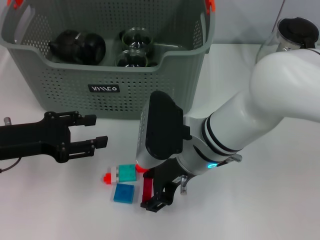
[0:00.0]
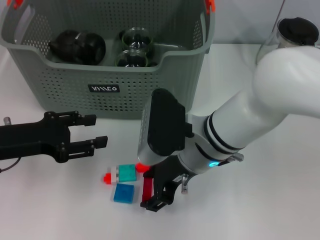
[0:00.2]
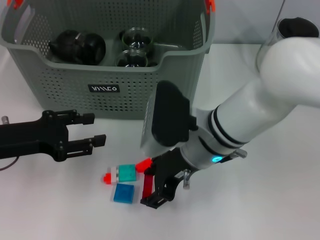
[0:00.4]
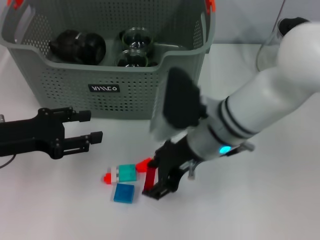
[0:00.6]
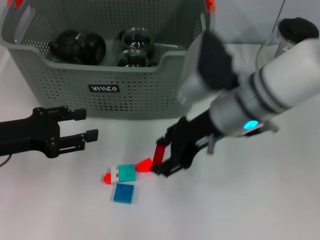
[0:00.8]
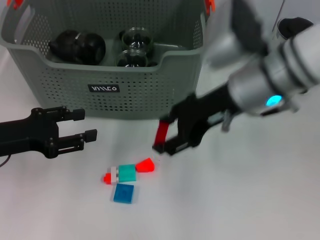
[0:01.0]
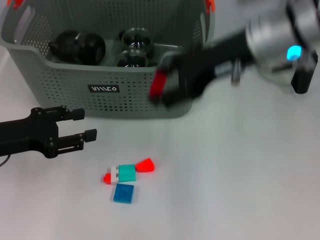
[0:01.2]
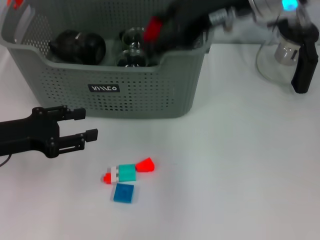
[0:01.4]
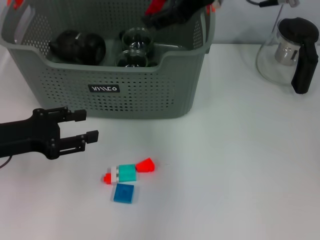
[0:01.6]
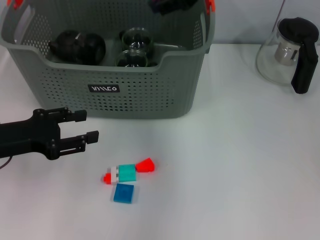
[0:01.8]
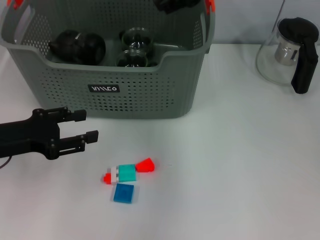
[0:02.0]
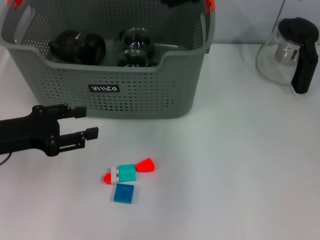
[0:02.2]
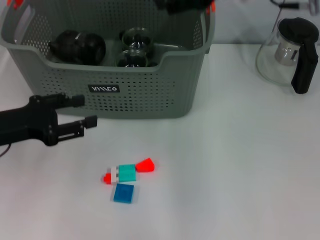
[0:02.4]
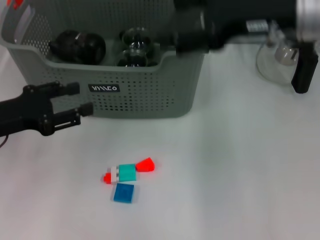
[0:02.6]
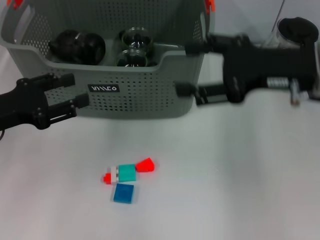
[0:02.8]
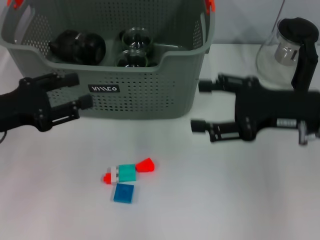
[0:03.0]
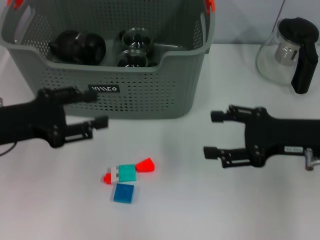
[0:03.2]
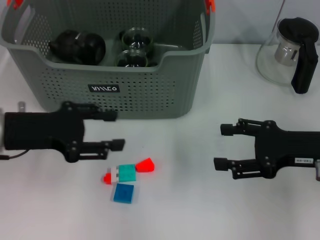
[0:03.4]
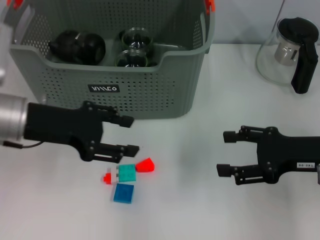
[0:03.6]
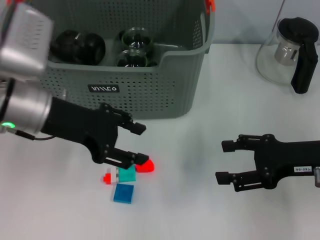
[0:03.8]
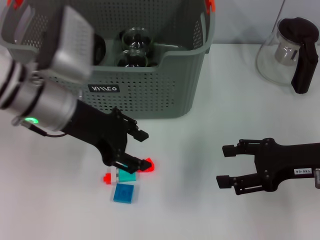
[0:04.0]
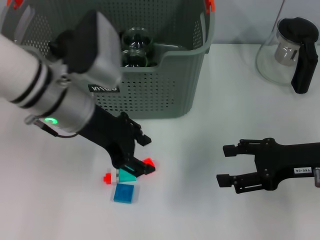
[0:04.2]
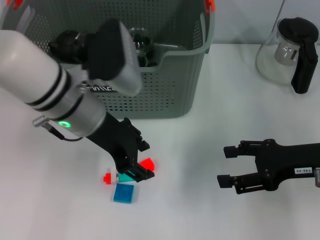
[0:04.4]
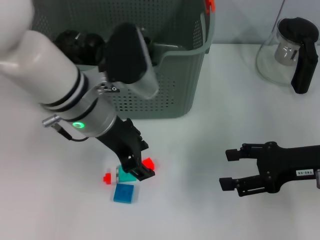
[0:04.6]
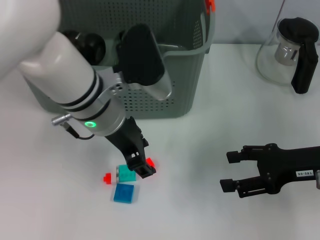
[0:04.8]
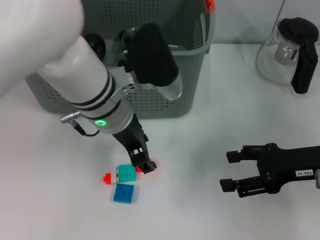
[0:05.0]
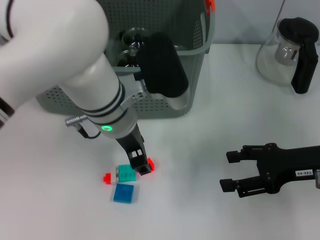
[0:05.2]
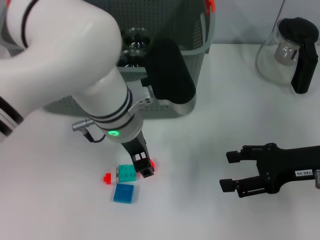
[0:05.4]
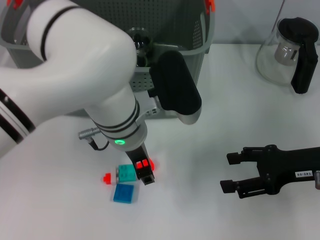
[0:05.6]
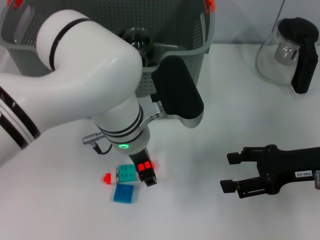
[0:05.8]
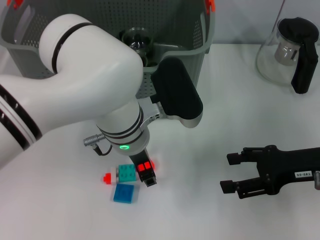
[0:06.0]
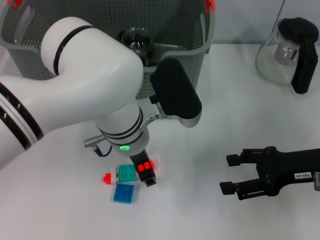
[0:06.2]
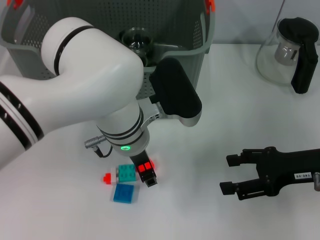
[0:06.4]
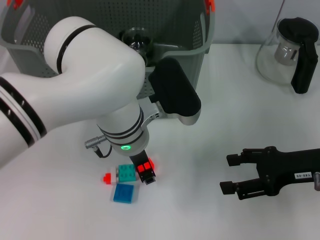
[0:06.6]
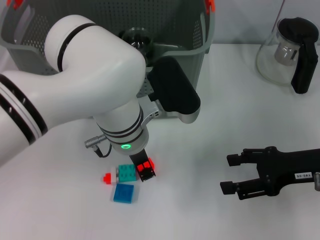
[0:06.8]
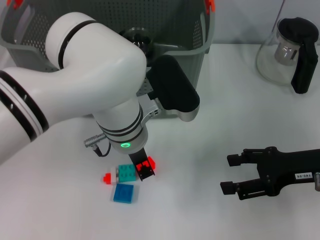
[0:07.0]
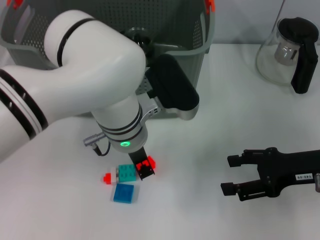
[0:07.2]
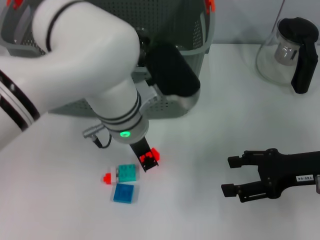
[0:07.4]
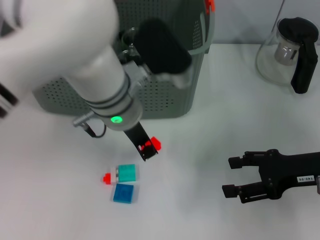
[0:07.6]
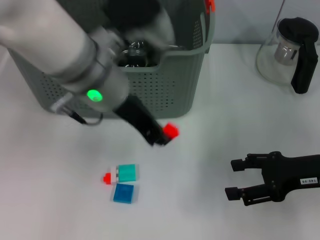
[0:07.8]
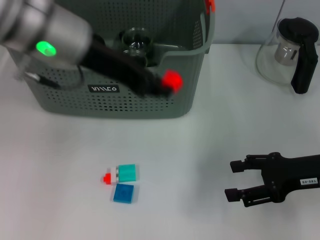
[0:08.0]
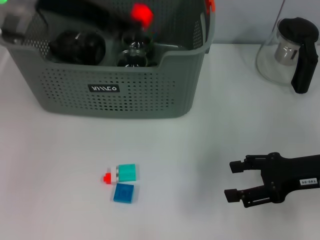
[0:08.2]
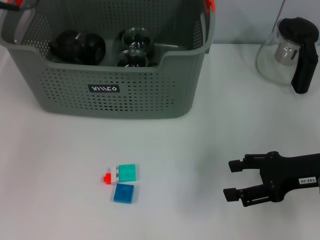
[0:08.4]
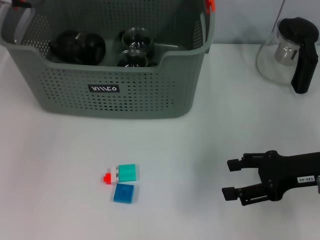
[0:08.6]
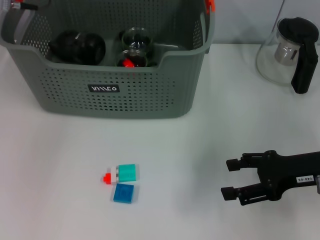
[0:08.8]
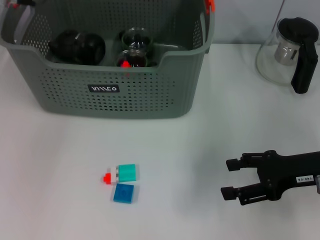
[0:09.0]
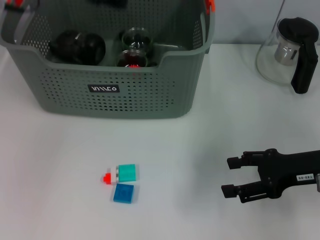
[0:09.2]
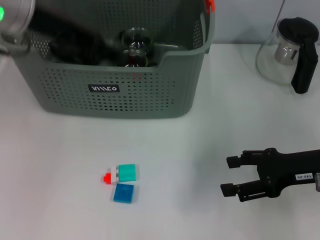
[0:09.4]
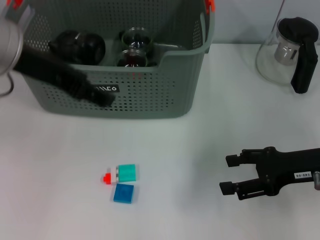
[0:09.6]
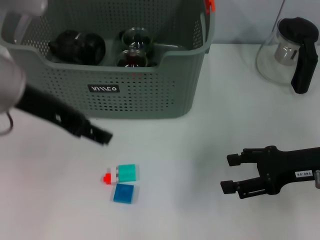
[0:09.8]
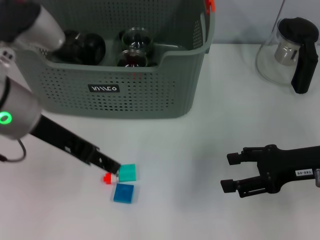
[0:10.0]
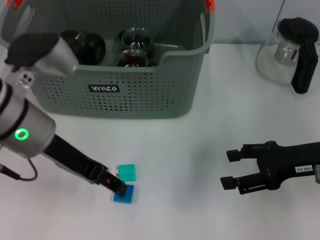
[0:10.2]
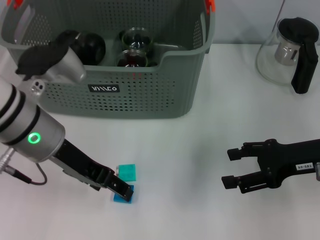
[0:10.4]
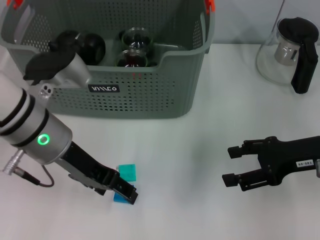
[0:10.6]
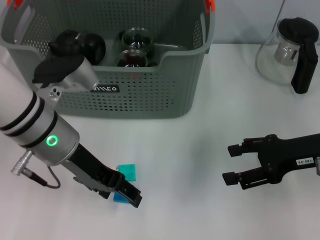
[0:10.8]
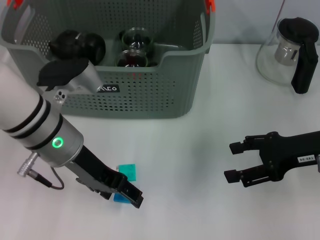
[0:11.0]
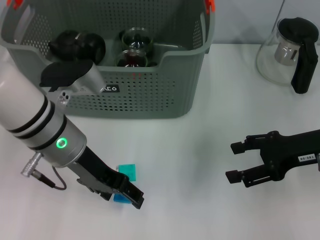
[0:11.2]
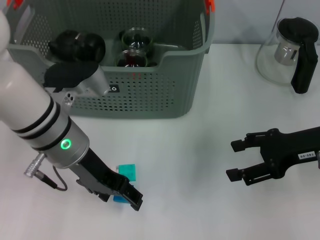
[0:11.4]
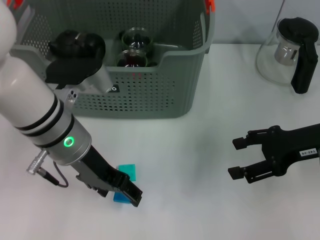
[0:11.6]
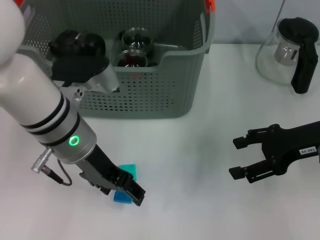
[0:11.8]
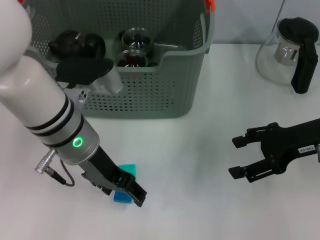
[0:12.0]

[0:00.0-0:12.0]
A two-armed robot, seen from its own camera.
Task of the whole recording: pick up the teacup on the table and place it into the storage bin, pick up the block on the table and place it into the storage bin.
Step, 0:00.0 to 0:01.8: Place the red block in the storage box with right gripper.
Step, 0:02.2 to 0:07.0: Grasp the orange block with left gripper.
Step, 0:07.2 to 0:08.8: Place the orange block in the storage box with left gripper.
0:00.0 to 0:01.6: The right gripper heads upward and forward, covering about 20 cm.
0:01.6 to 0:03.0: The right gripper goes some 20 cm downward, to the right and backward.
0:03.0 to 0:04.4: The right gripper changes place by some 5 cm; the left gripper heads to the right, covering about 15 cm.
0:04.4 to 0:06.0: The left gripper shifts about 10 cm to the right.
0:06.0 to 0:07.6: The left gripper shifts by about 5 cm, and closes.
0:07.6 to 0:09.0: The left gripper is displaced to the left, upward and forward by some 20 cm.
0:09.0 to 0:10.4: The left gripper is displaced backward and downward by roughly 15 cm, and opens its fingers.

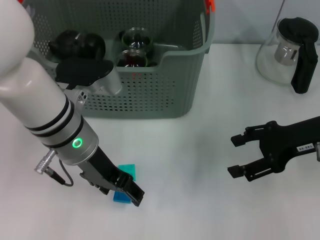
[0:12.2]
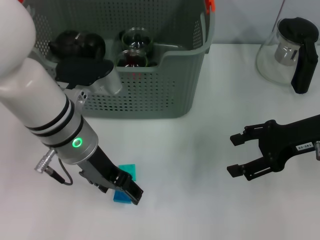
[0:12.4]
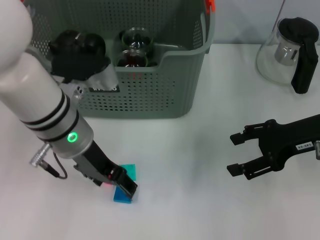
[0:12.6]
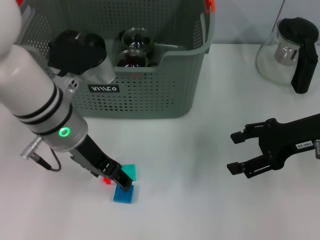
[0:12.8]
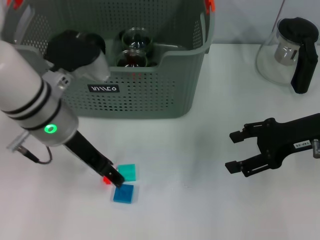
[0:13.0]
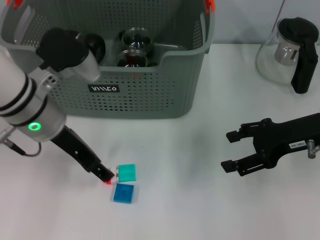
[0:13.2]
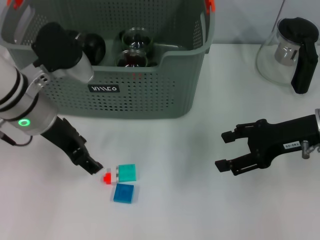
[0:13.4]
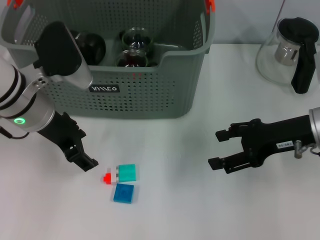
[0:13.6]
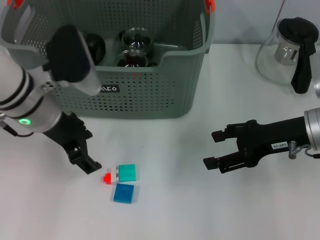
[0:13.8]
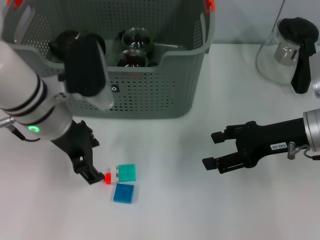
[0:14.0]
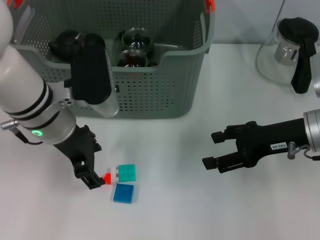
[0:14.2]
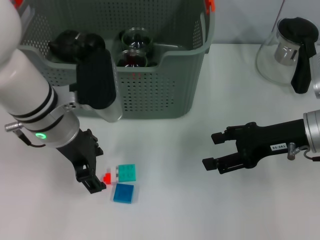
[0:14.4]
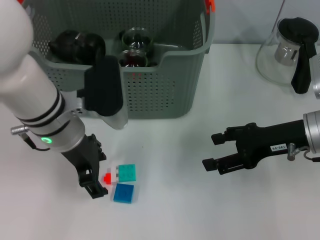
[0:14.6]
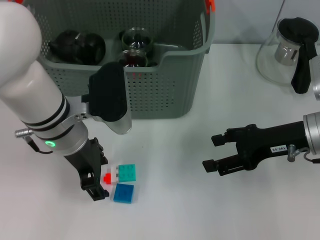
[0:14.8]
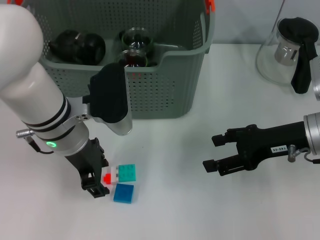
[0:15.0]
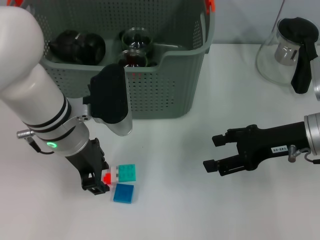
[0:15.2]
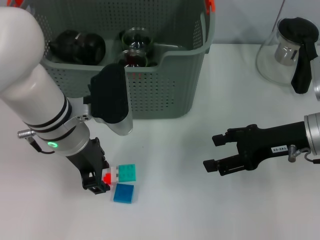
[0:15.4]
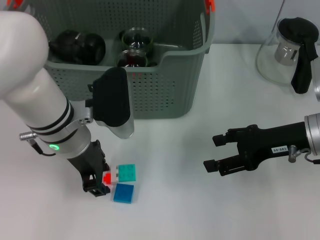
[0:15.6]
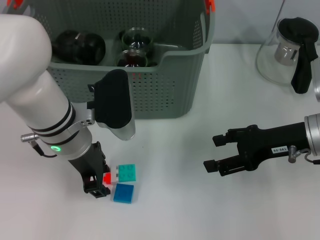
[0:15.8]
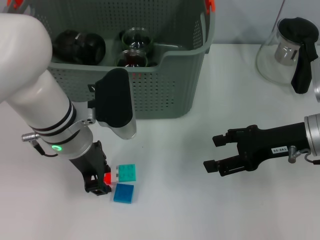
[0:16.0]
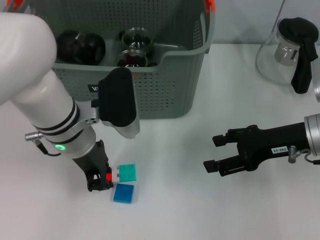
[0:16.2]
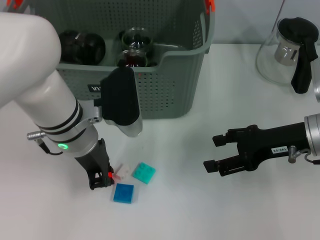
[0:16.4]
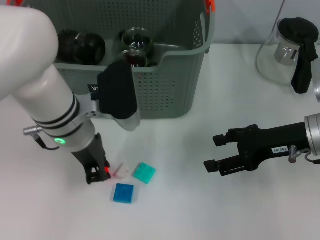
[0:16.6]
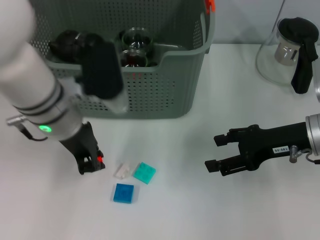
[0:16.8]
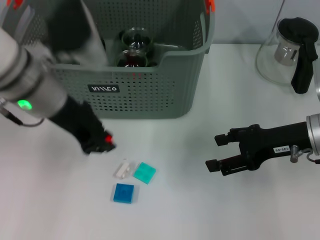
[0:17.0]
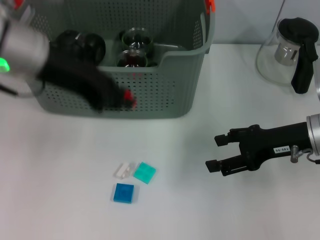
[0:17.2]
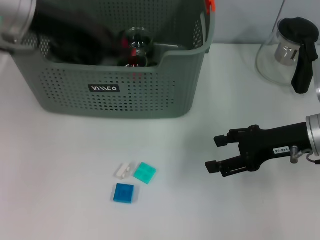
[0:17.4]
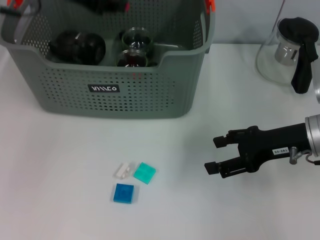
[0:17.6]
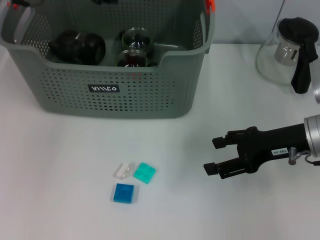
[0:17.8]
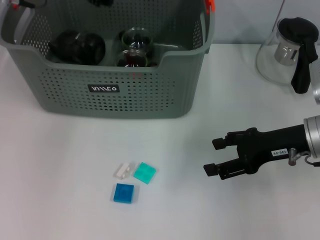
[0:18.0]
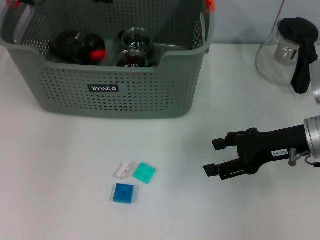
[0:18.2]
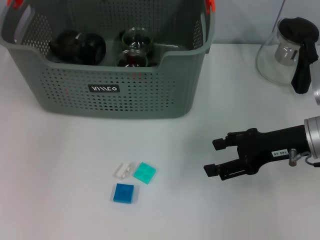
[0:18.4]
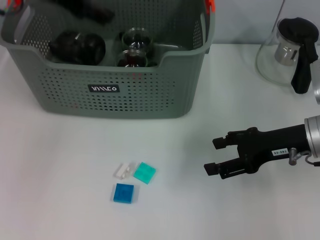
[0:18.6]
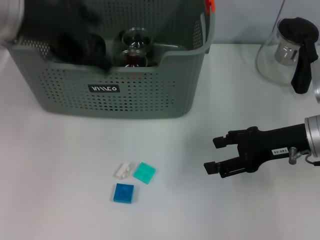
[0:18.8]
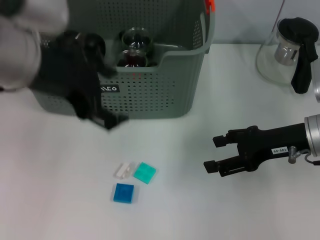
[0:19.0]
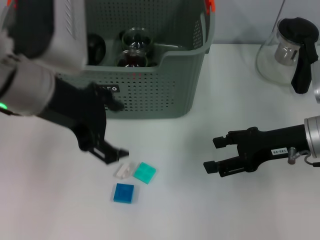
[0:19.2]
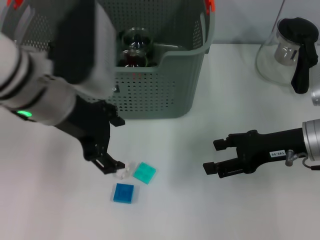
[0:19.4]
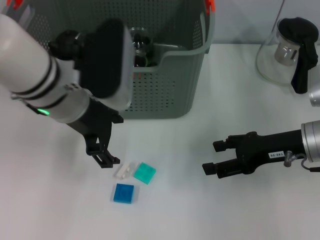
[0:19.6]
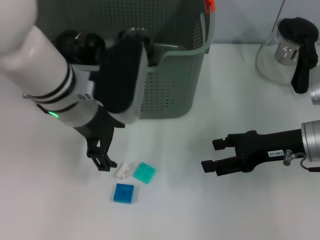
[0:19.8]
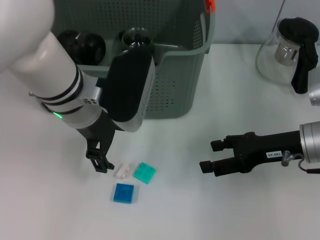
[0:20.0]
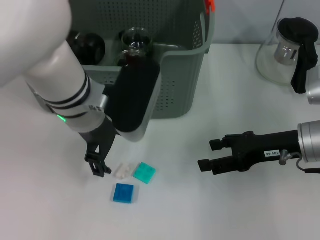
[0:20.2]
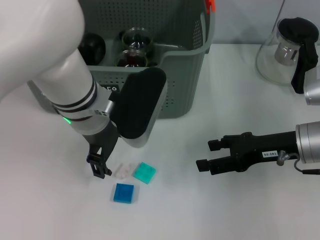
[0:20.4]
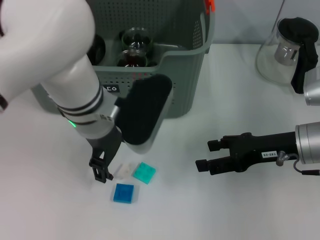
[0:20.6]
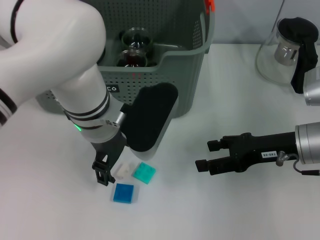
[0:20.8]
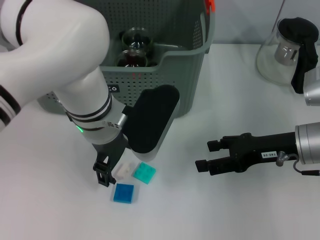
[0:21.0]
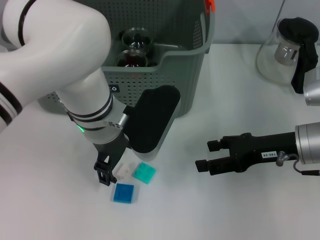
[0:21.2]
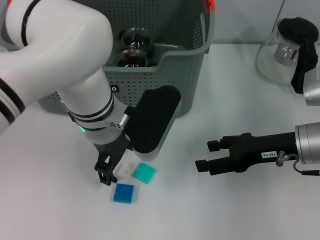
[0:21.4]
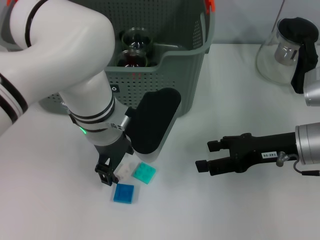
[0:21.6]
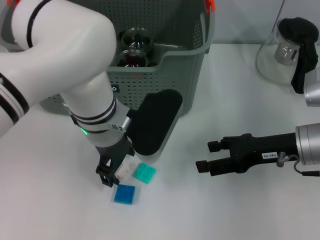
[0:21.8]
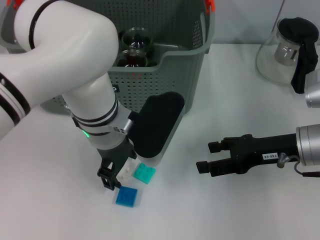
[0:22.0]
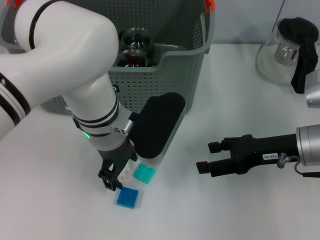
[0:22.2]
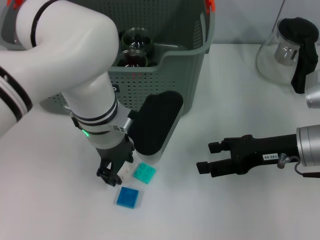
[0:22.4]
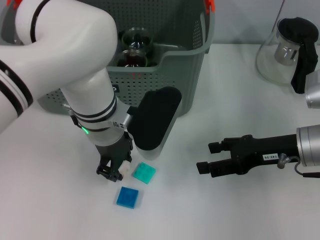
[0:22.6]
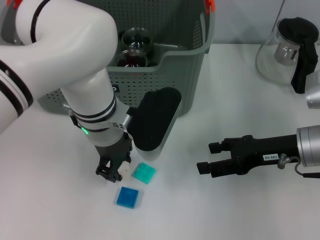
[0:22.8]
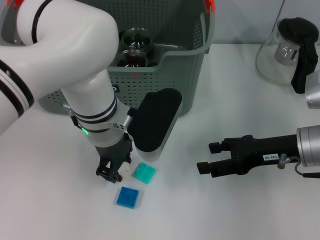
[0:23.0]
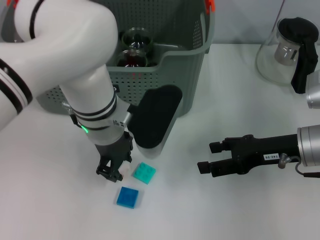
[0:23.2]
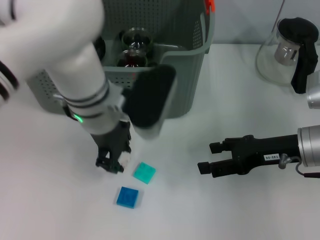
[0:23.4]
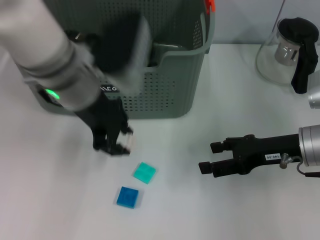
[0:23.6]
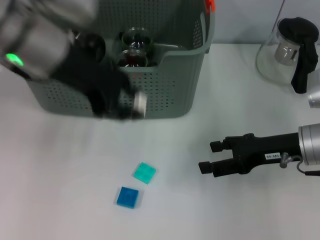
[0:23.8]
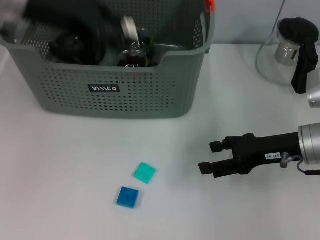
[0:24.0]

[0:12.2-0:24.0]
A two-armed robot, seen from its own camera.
Task of the whole recording: pick up the teacup on the table and place it into the storage bin, pick up the block on the table and place it into the storage bin.
Step, 0:12.2 to 0:16.2: Grasp the orange block with left gripper.
Step, 0:16.6 to 0:18.2: Place the orange block in the storage box with left gripper.
Step, 0:18.6 to 0:22.6: Grasp the white block with left gripper.
0:12.2 to 0:13.6: The left gripper is displaced to the left by some 5 cm.
0:13.6 to 0:15.2: The left gripper moves to the right, about 5 cm.
0:15.2 to 0:16.6: The left gripper closes.
0:16.6 to 0:18.2: The left gripper shifts about 20 cm upward, forward and to the left.
0:18.2 to 0:19.6: The left gripper moves backward, downward and to the right, about 15 cm, and opens up.
0:19.6 to 0:21.0: The left gripper changes place by roughly 5 cm.
0:21.0 to 0:22.6: The left gripper closes its fingers.
0:22.6 to 0:24.0: The left gripper goes roughly 20 cm upward and to the left.
